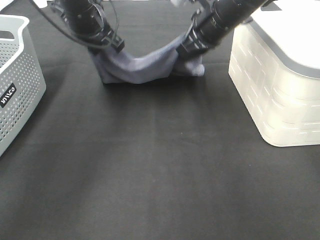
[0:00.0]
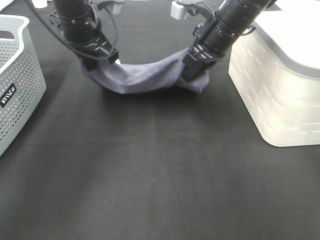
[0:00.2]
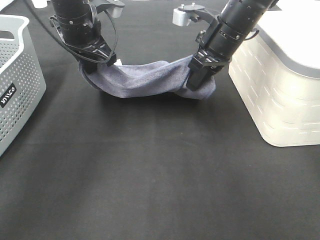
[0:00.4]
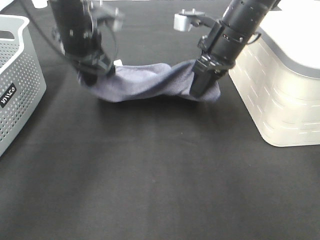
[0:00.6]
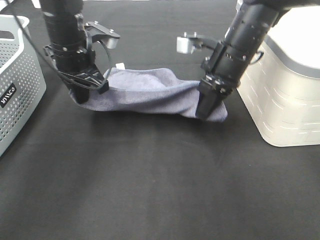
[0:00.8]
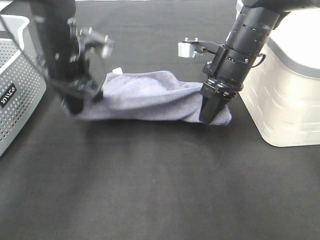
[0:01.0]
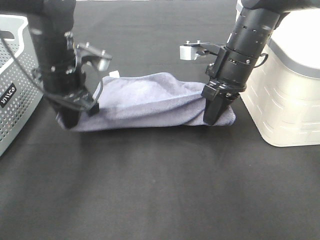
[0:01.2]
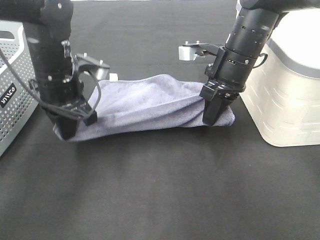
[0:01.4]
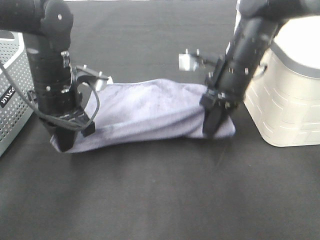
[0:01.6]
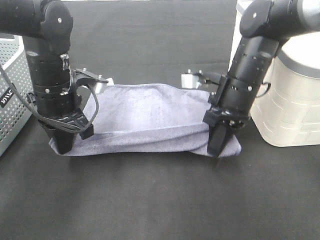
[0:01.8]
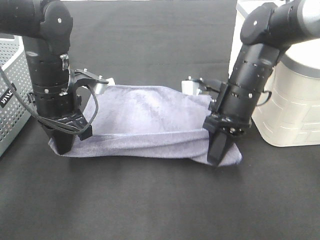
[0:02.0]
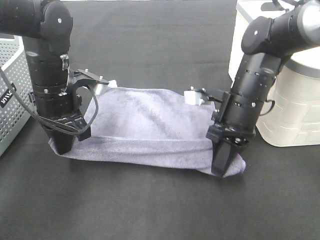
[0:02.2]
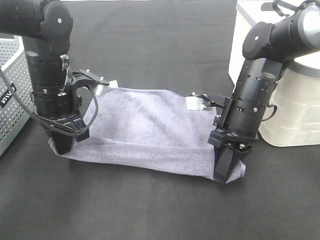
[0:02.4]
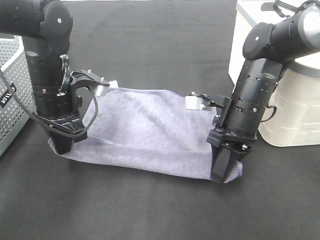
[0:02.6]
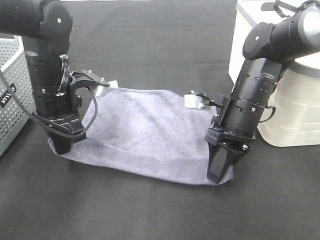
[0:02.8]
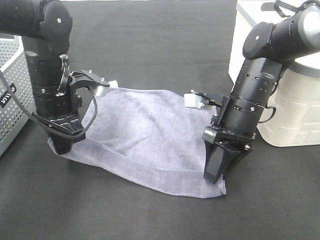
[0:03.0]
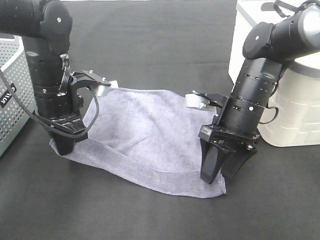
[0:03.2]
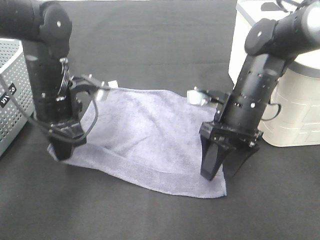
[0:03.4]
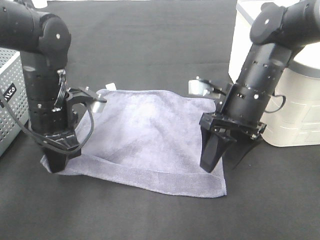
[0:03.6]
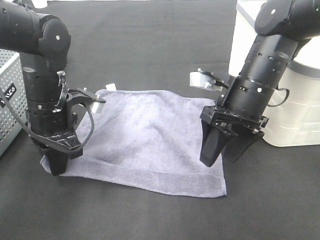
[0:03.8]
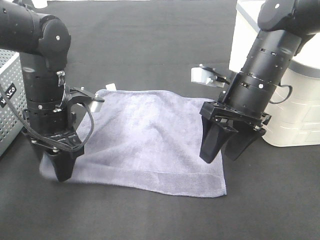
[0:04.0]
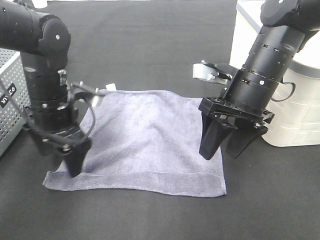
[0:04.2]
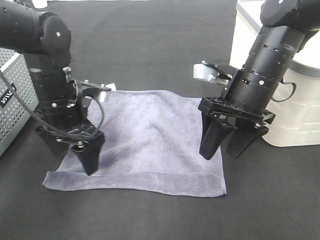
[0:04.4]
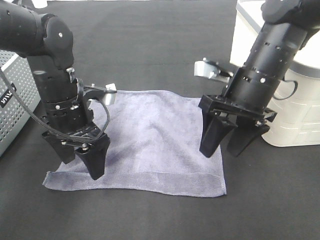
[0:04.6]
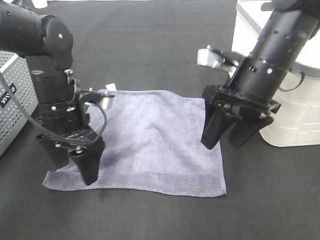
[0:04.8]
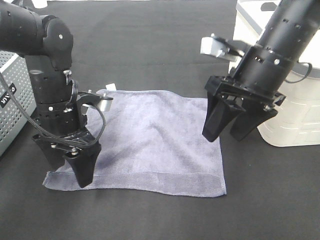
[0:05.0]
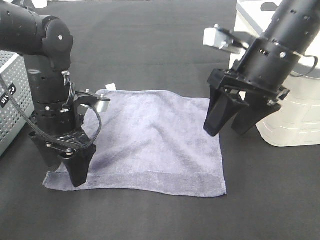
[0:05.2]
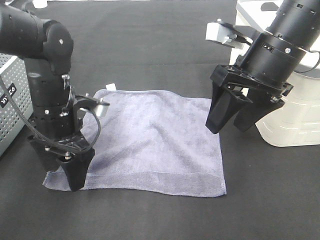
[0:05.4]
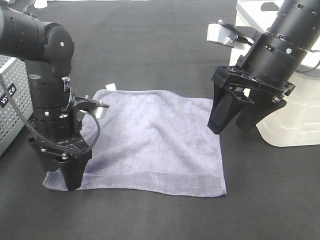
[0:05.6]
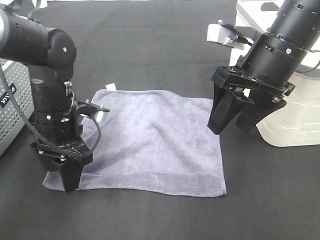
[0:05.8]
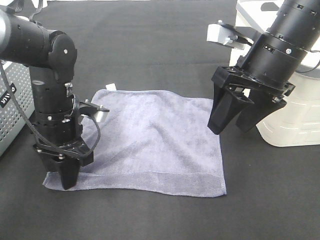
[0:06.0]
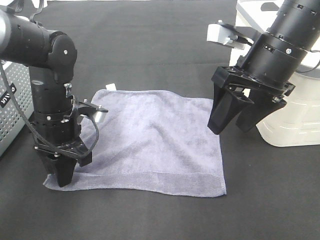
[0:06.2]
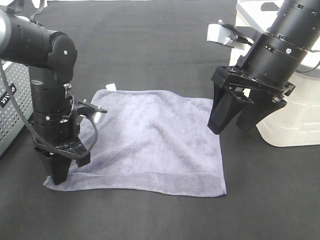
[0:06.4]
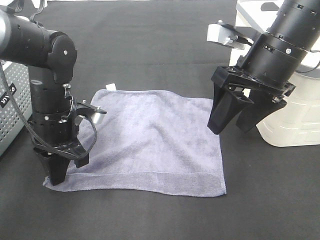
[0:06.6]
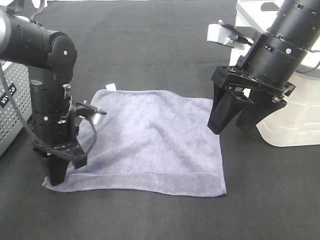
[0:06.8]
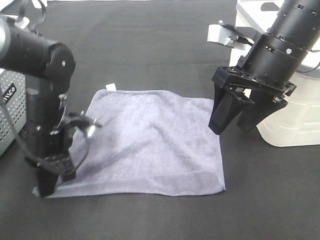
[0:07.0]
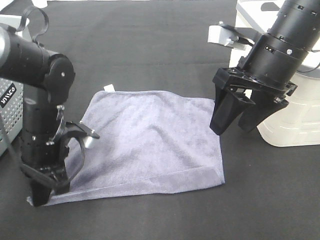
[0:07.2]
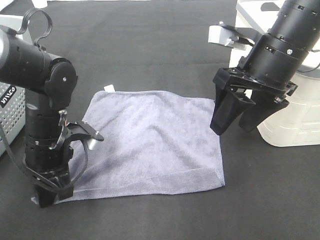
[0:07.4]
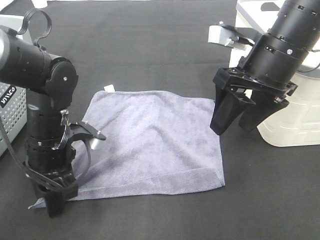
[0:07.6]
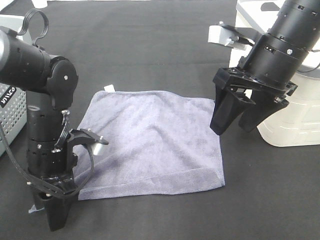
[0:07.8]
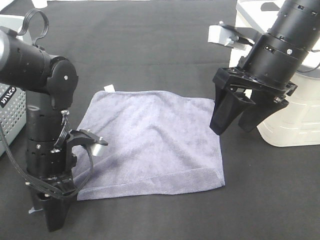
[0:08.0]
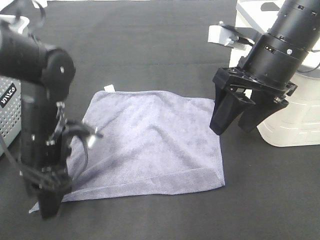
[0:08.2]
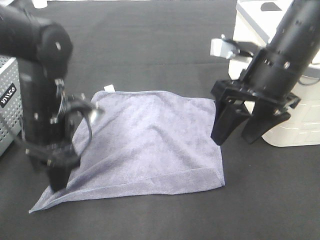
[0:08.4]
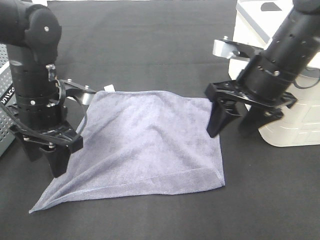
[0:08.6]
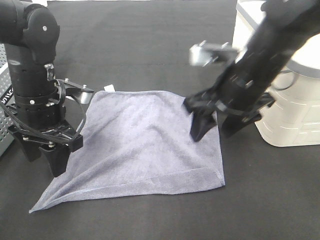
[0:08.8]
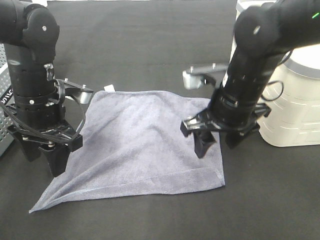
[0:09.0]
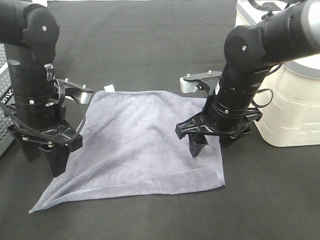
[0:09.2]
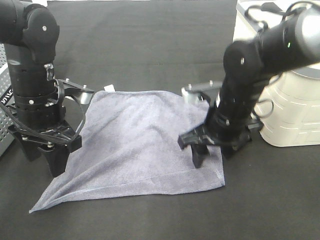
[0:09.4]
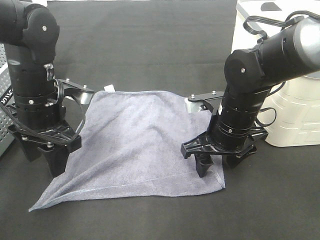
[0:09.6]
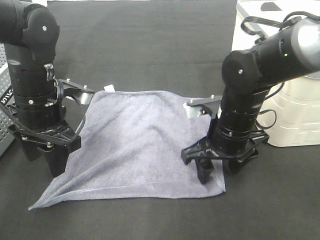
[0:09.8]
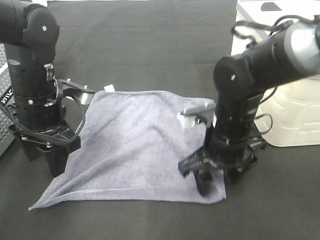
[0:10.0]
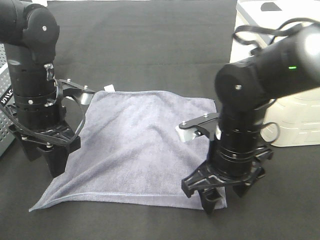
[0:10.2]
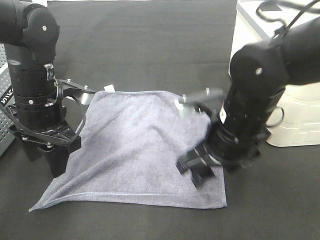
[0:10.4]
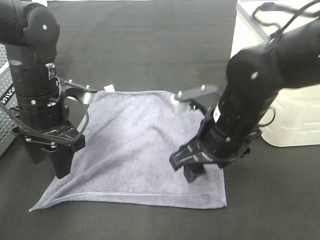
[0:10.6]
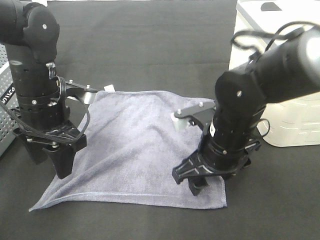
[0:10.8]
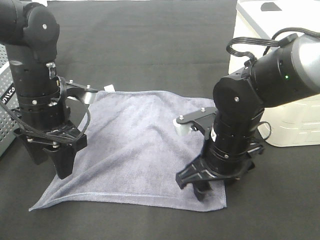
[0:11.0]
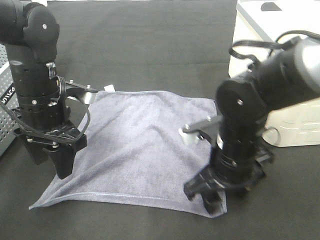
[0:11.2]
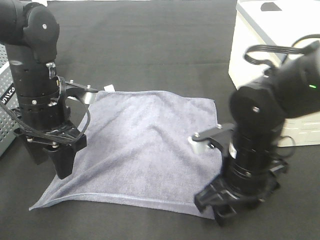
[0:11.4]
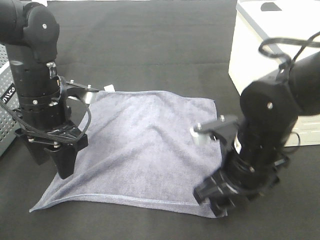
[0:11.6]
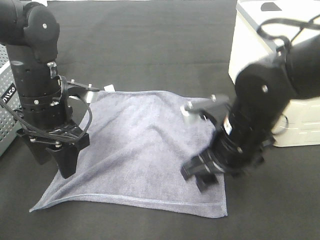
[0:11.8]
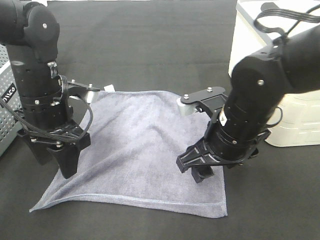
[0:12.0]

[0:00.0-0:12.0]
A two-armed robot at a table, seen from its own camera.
Task of the whole recording: Remove the towel and place it.
0:00.0 to 0:01.6: The two grippers go approximately 10 cm backward and downward.
0:01.6 to 0:03.0: The right gripper changes place by some 5 cm, and opens.
0:03.0 to 0:04.4: The left gripper opens up. The right gripper moves upward, some 5 cm.
0:04.4 to 0:06.0: The left gripper closes its fingers; the right gripper shifts approximately 5 cm upward.
0:06.0 to 0:07.6: The left gripper closes, then opens again.
0:07.6 to 0:09.0: The left gripper moves upward, roughly 5 cm. The right gripper shifts approximately 10 cm downward.
0:09.0 to 0:10.4: The right gripper heads backward, covering approximately 5 cm.
0:10.4 to 0:12.0: The grippers make only small movements.

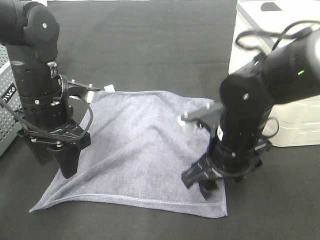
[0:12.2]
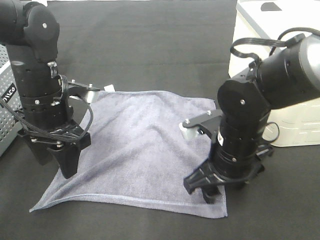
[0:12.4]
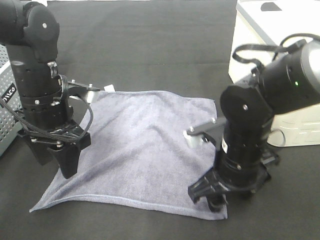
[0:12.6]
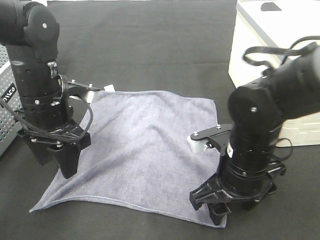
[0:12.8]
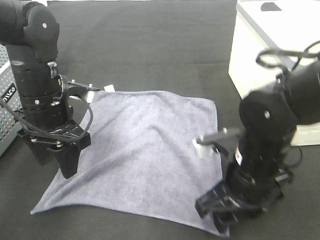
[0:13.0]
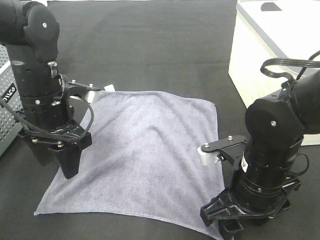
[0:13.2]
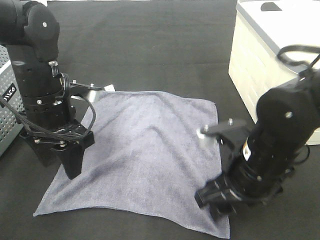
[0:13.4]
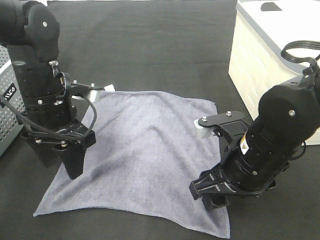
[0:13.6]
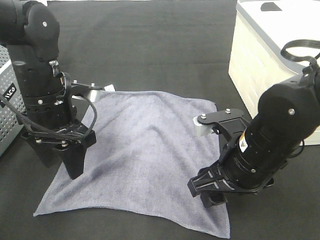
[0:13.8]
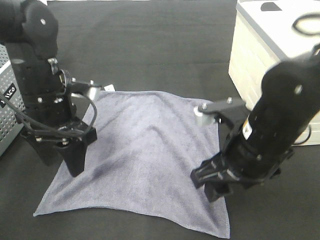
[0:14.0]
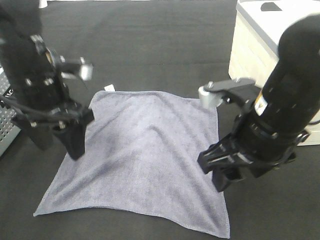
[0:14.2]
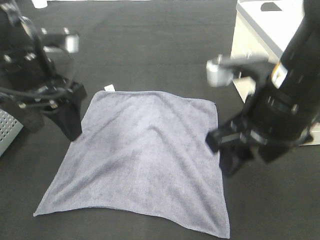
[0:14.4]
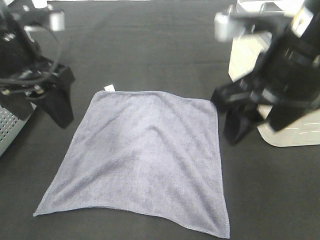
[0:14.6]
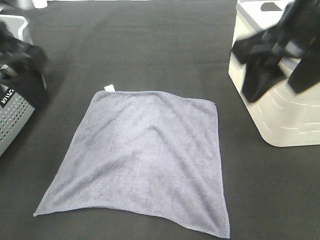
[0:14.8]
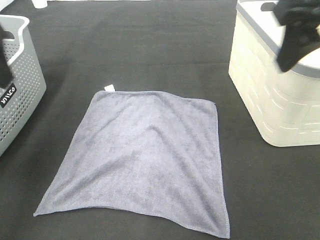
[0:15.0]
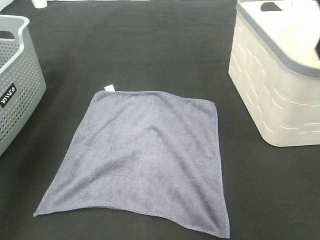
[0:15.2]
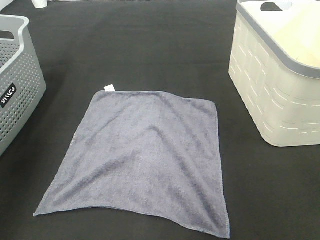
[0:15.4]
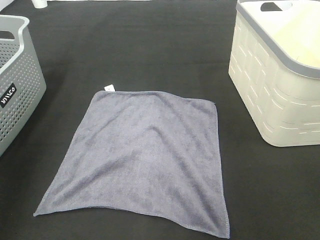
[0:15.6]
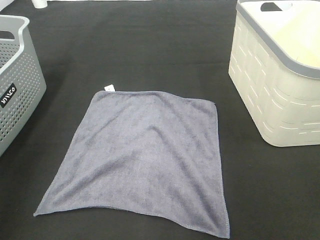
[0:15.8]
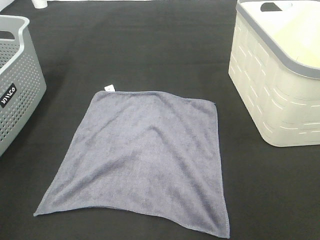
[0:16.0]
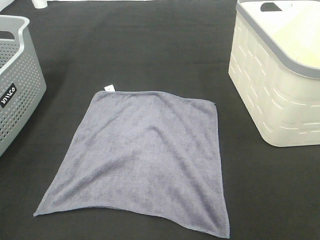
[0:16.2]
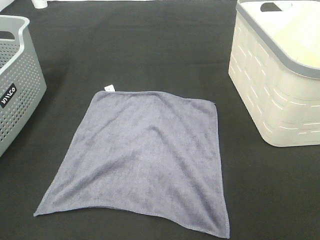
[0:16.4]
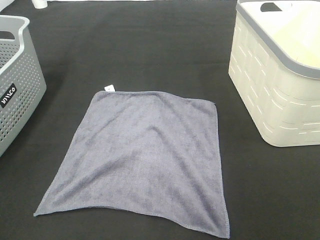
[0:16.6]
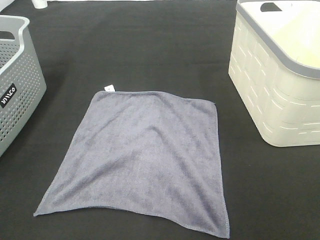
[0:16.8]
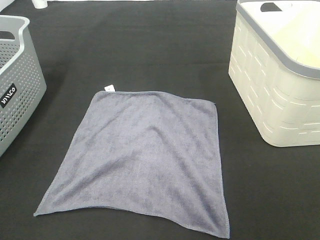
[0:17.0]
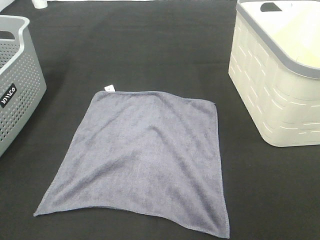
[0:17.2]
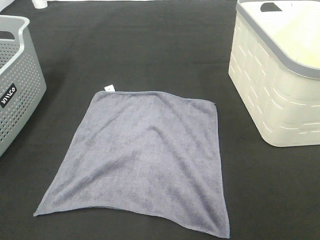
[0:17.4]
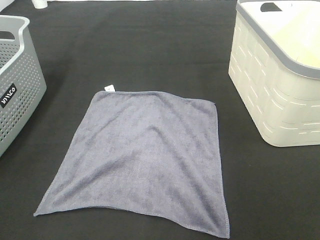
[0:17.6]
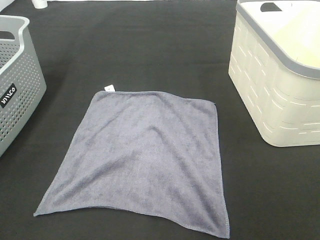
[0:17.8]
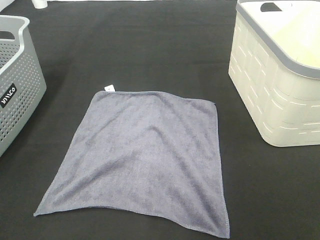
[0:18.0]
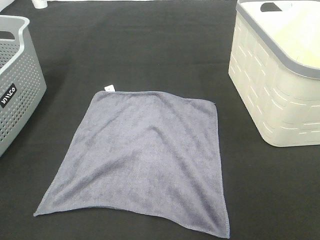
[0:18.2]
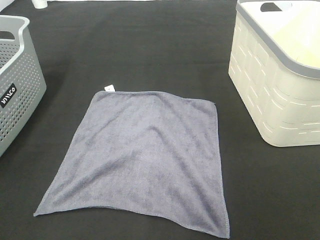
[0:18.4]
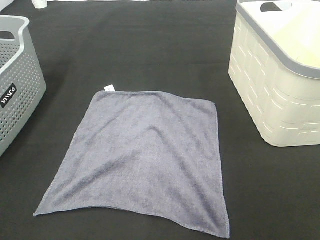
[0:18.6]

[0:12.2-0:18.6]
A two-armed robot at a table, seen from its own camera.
Task of the whole recording: Remove the towel and place it.
0:13.8 to 0:15.4: The right gripper heads upward and to the right, covering about 30 cm; the left gripper moves upward, to the left and backward, some 25 cm.
0:15.4 to 0:17.0: The left gripper goes about 25 cm backward.

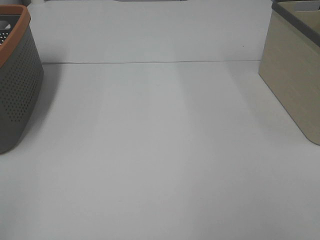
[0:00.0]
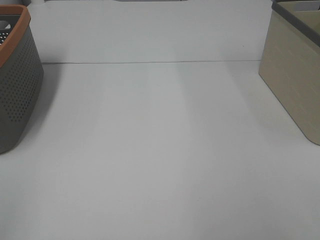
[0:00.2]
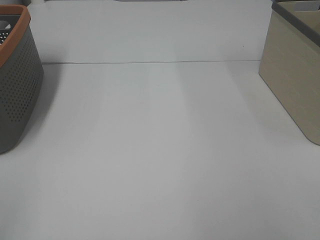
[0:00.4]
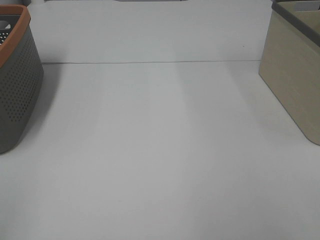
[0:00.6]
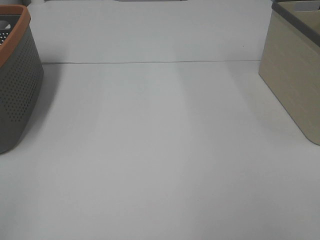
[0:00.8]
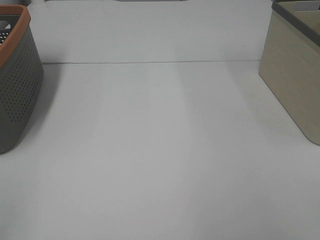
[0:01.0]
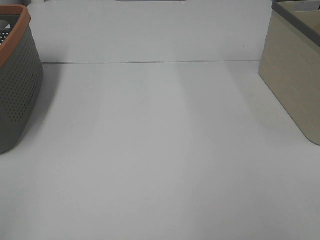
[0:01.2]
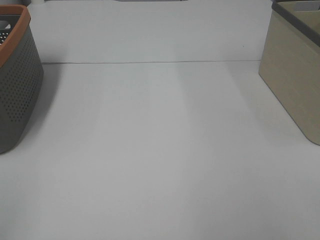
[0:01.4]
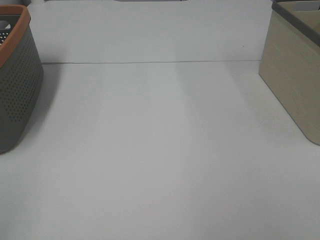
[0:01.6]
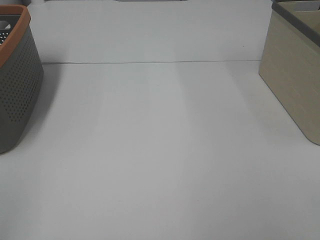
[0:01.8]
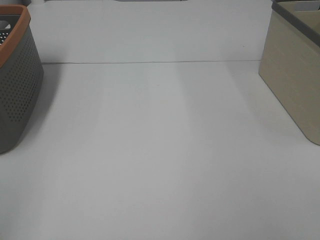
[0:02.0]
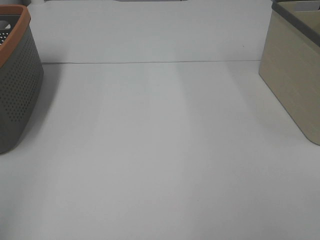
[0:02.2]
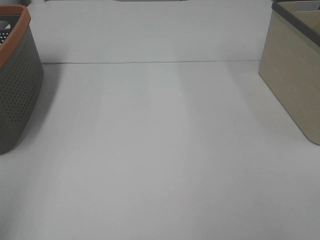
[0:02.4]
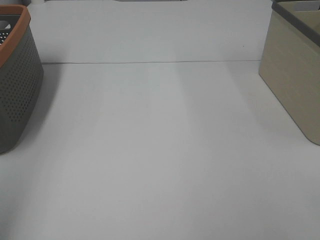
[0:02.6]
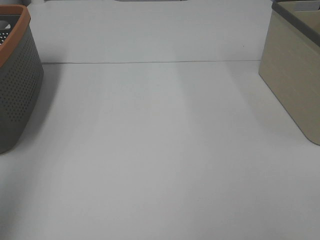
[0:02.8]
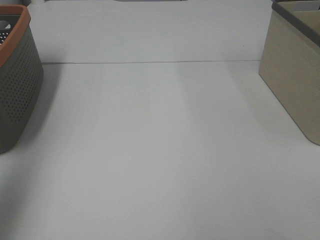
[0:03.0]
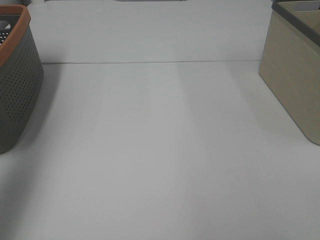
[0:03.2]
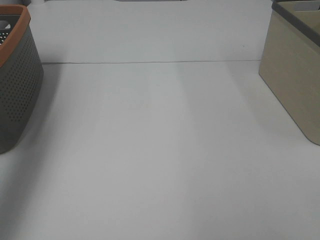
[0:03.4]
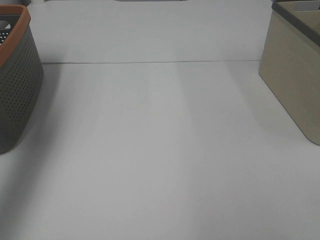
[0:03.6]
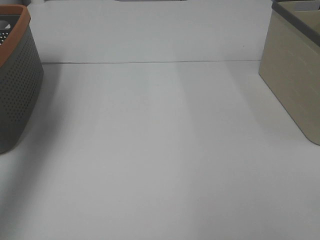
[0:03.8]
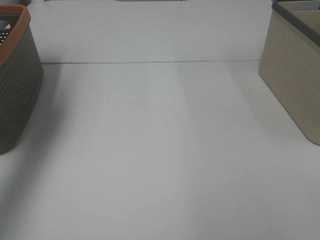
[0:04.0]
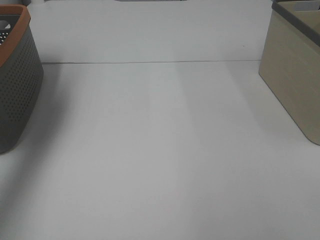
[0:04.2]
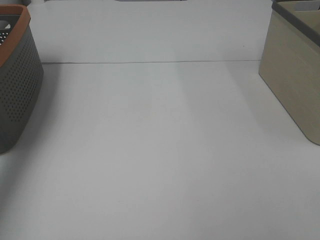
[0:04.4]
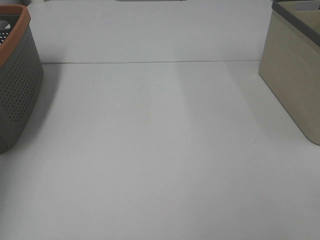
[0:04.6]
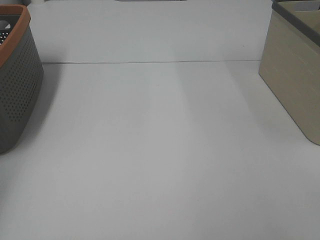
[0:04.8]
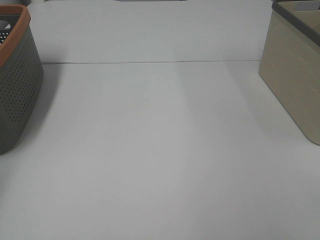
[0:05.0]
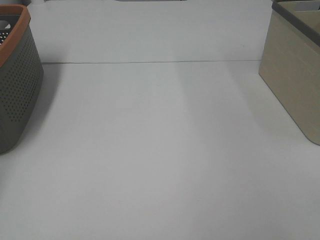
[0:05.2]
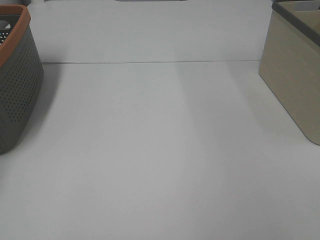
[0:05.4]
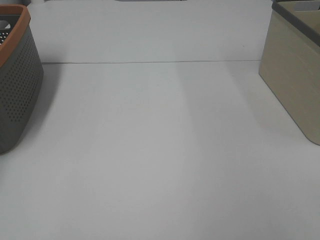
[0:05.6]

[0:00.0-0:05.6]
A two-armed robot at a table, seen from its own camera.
Task of the whole recording: Remove the towel and place it.
0:00.0 to 0:01.4: Both grippers stay put.
0:01.4 to 0:02.8: The left gripper heads forward and upward, covering roughly 15 cm.
0:02.8 to 0:04.2: The left gripper travels forward by roughly 25 cm.
0:04.2 to 0:05.6: The left gripper moves to the left and downward, some 20 cm.
